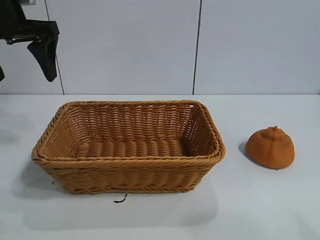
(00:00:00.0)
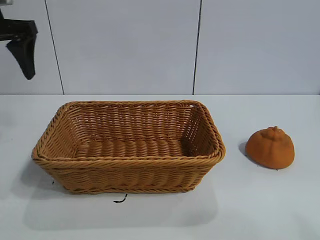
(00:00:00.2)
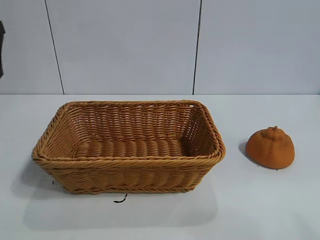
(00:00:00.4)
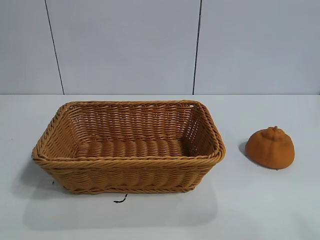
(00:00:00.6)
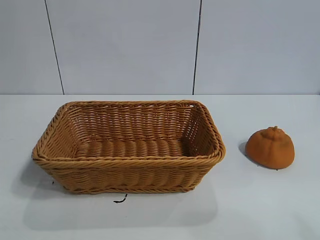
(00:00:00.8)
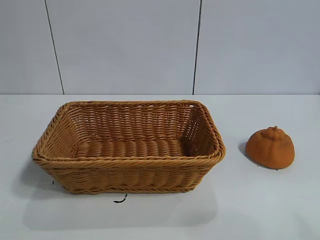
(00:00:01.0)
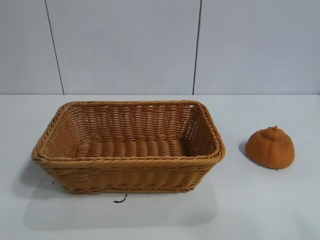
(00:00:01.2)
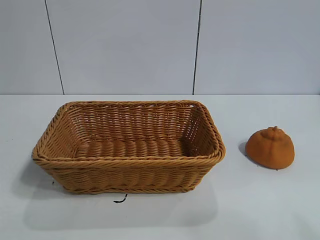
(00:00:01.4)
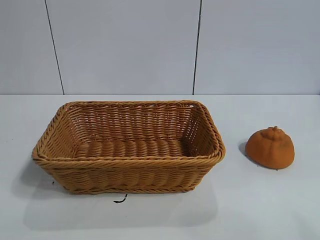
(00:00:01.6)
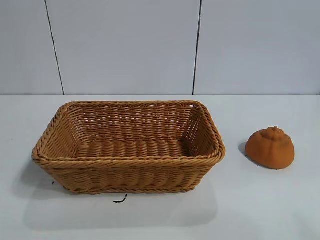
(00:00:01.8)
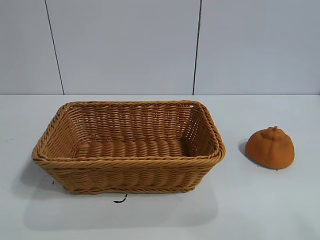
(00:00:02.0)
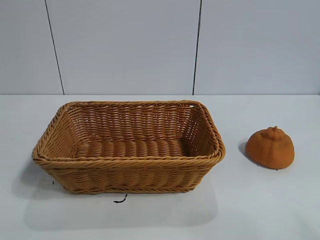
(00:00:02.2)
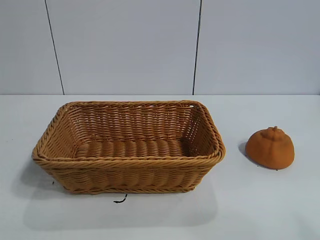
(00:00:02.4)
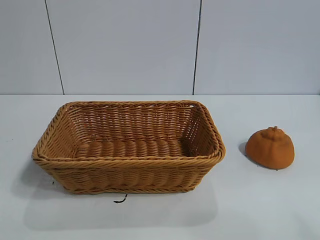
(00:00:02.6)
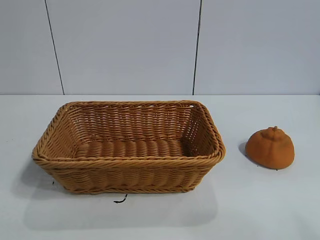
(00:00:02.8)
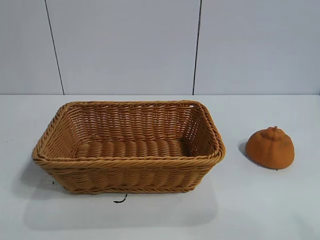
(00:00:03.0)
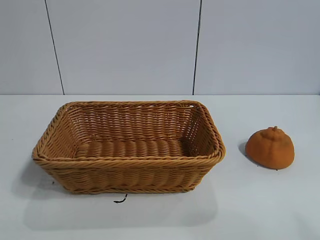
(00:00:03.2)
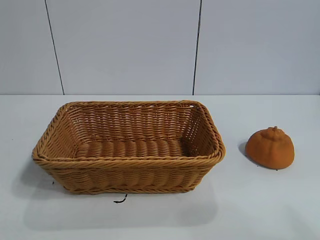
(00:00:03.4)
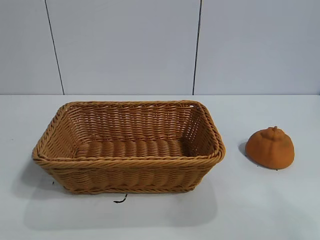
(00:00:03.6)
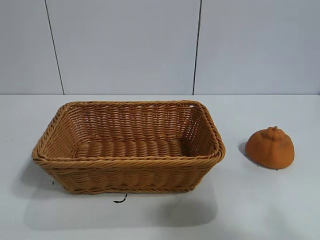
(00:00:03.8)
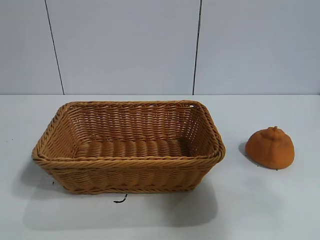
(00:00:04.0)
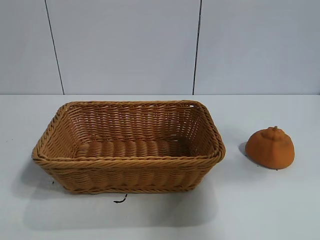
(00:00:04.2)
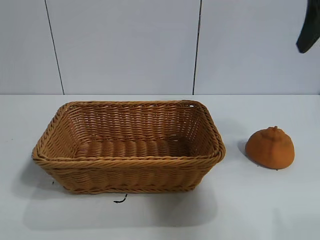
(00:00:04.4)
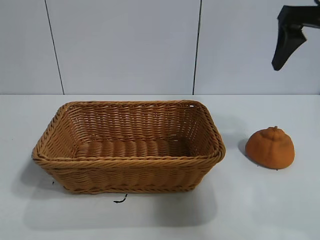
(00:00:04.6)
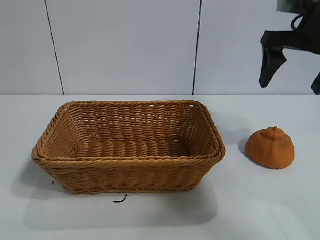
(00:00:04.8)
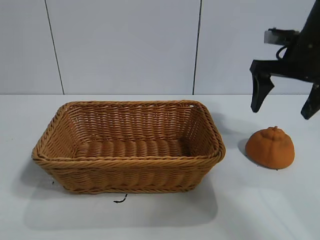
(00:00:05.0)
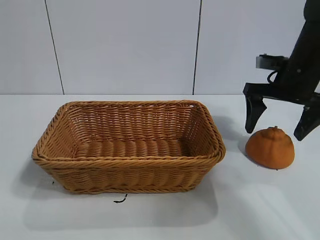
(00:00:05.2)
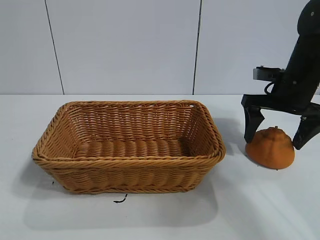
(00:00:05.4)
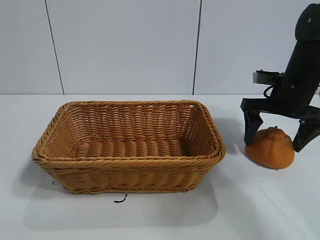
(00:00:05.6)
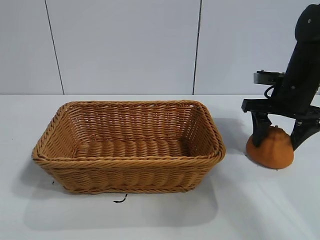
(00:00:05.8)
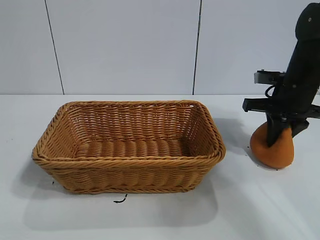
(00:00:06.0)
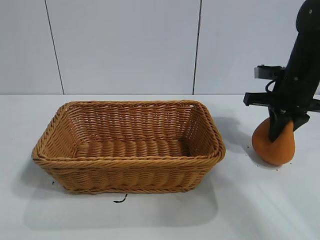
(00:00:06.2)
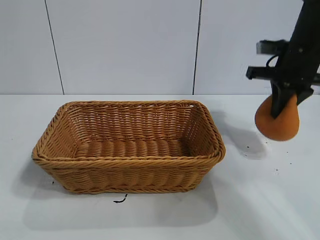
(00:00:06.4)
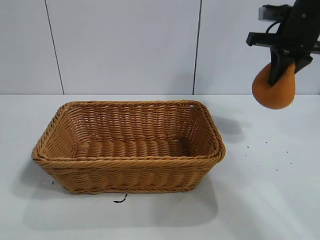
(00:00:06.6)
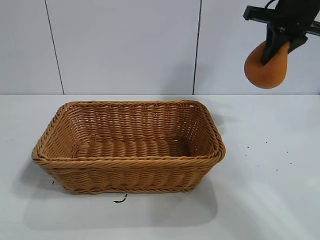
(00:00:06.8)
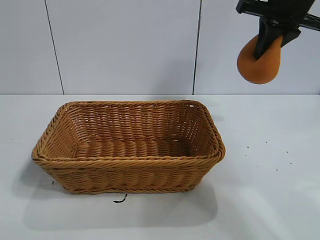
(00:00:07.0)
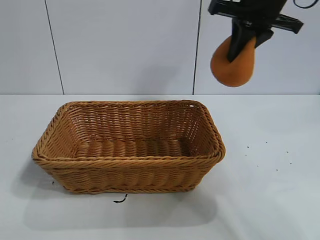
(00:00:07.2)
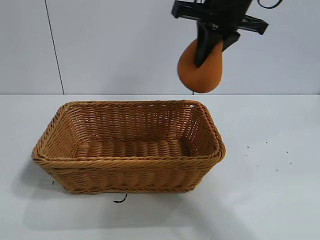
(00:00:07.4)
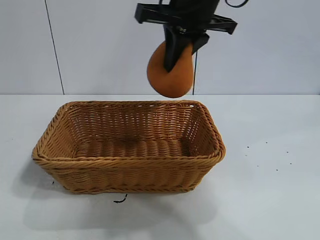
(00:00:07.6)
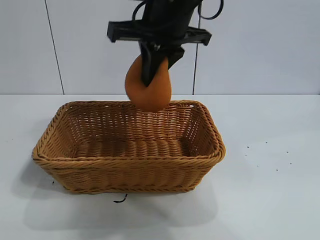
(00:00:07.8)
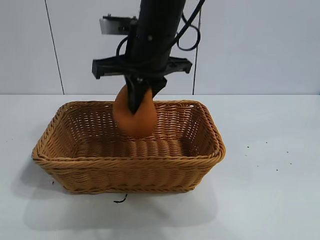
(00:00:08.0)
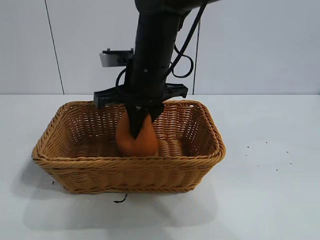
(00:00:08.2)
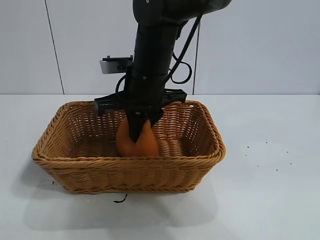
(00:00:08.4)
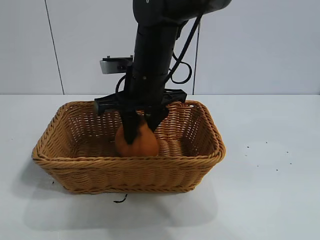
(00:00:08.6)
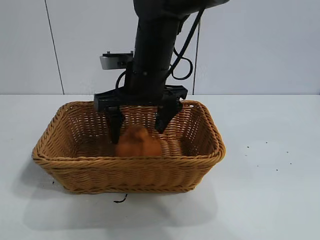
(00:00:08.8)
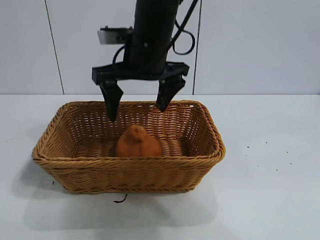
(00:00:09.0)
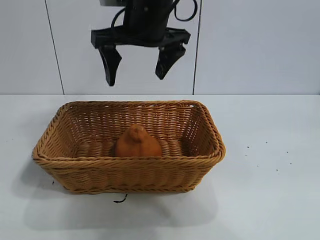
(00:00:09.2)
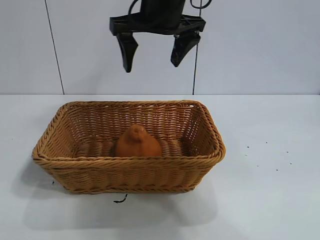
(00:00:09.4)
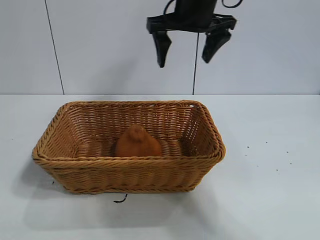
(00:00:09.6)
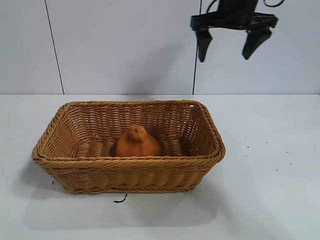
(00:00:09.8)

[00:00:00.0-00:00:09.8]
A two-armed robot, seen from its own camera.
Task of the whole recording: pick up the orange and put it into the basket.
Step, 00:00:00.0 to 00:00:06.0: Grasp the orange with right gripper.
Step, 00:00:06.4 to 00:00:08.8: Place the orange in the basket with right gripper.

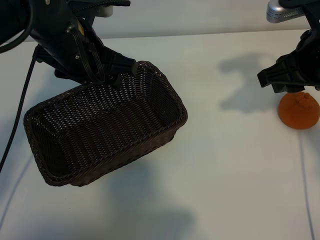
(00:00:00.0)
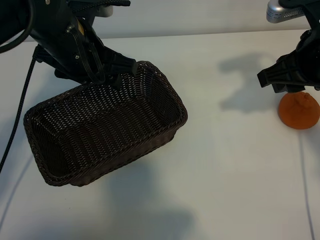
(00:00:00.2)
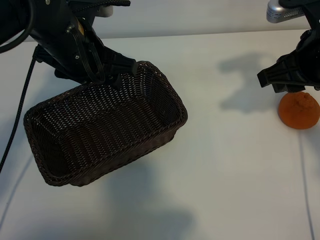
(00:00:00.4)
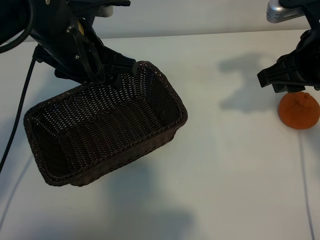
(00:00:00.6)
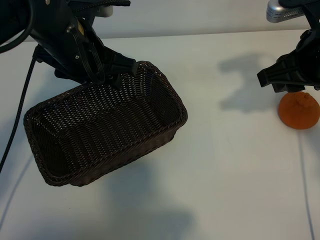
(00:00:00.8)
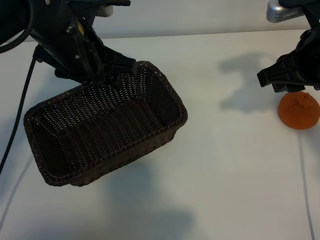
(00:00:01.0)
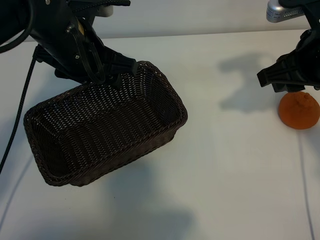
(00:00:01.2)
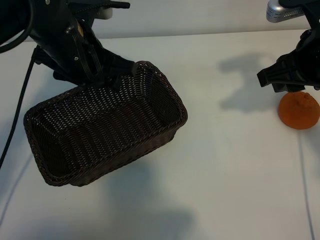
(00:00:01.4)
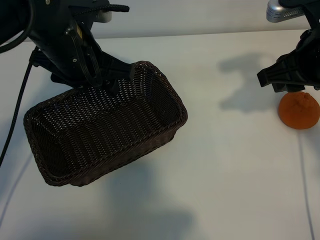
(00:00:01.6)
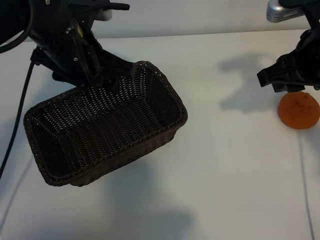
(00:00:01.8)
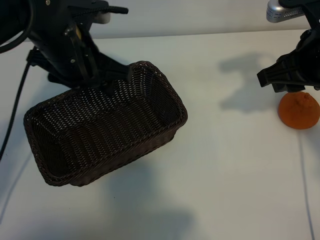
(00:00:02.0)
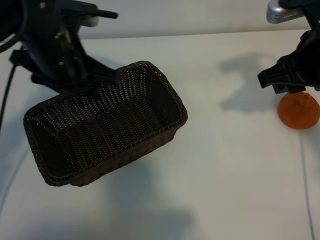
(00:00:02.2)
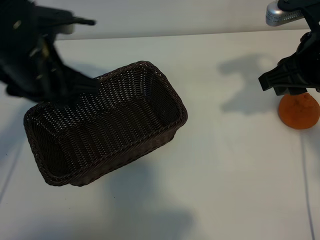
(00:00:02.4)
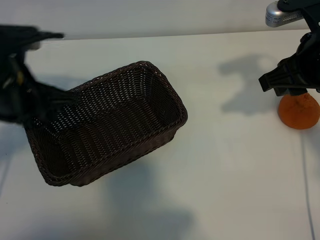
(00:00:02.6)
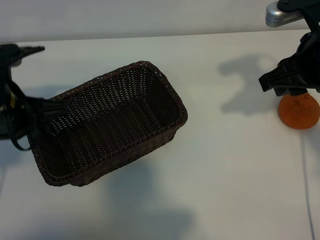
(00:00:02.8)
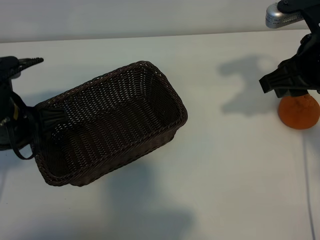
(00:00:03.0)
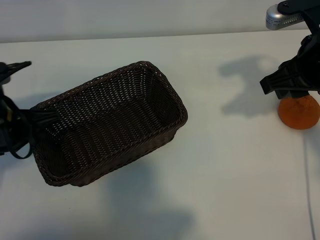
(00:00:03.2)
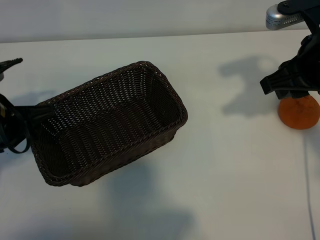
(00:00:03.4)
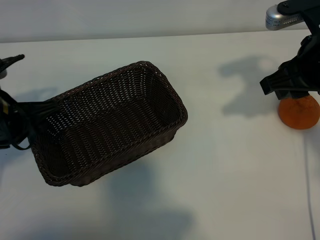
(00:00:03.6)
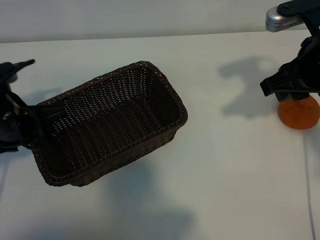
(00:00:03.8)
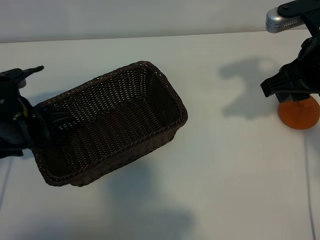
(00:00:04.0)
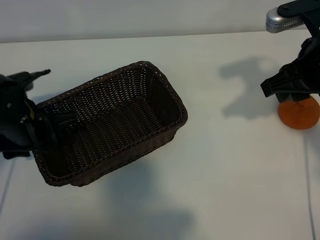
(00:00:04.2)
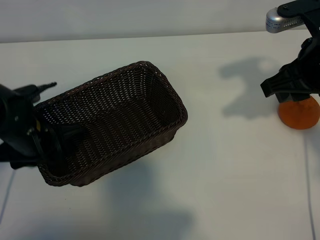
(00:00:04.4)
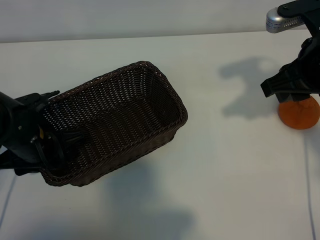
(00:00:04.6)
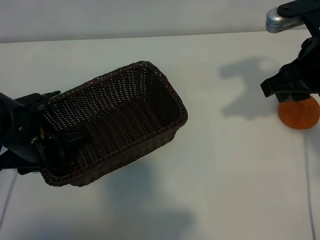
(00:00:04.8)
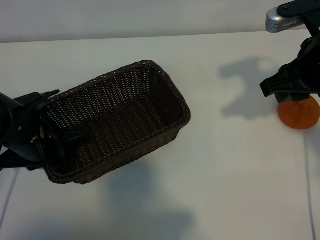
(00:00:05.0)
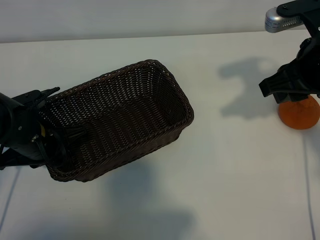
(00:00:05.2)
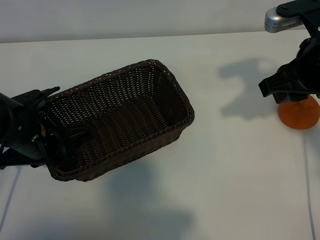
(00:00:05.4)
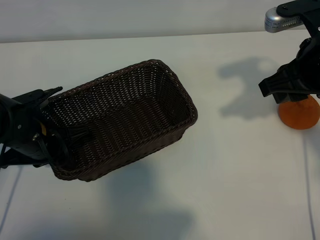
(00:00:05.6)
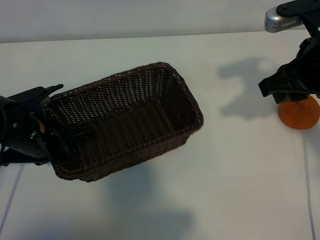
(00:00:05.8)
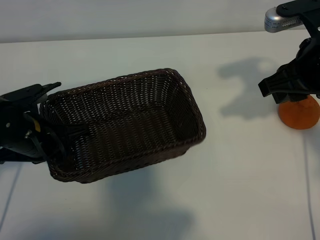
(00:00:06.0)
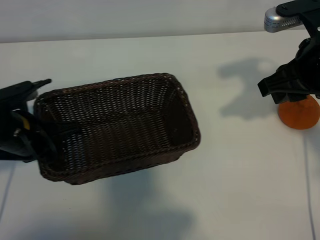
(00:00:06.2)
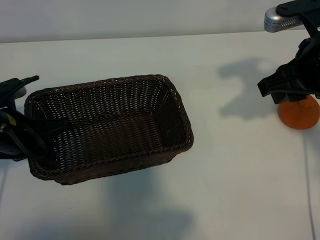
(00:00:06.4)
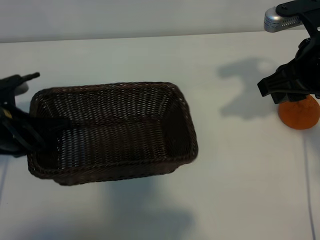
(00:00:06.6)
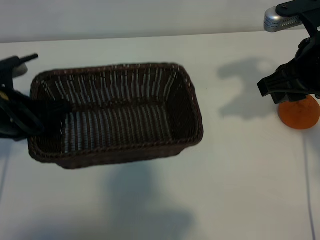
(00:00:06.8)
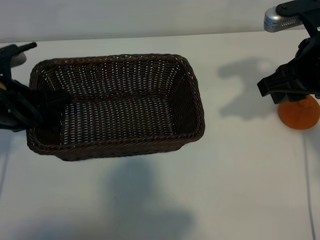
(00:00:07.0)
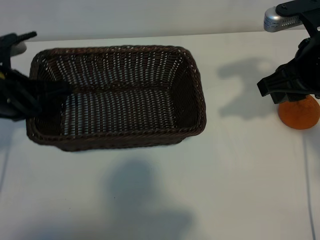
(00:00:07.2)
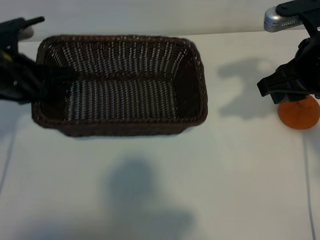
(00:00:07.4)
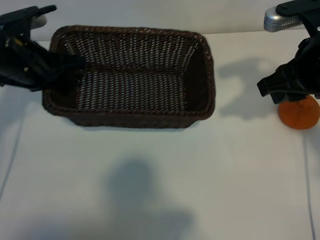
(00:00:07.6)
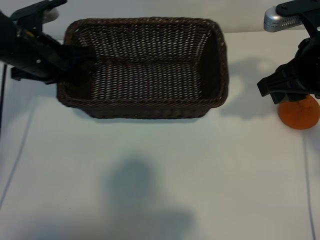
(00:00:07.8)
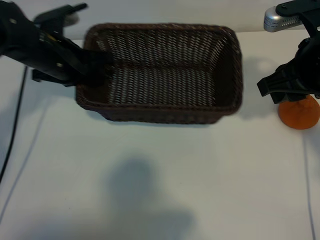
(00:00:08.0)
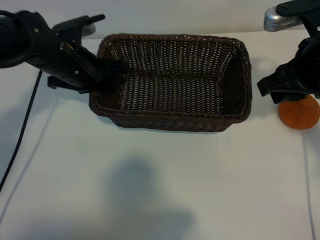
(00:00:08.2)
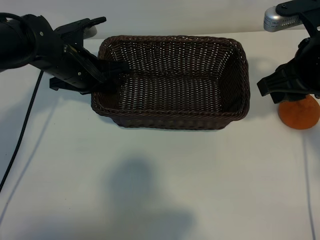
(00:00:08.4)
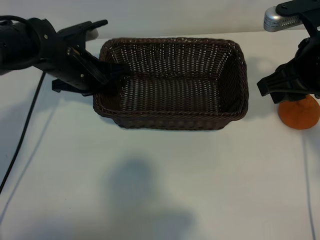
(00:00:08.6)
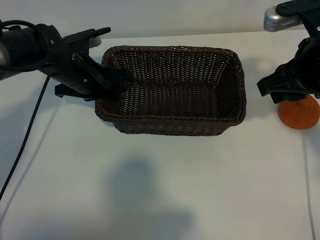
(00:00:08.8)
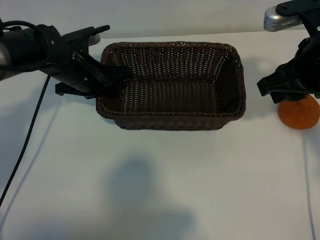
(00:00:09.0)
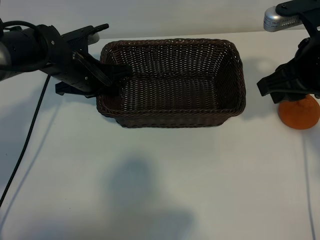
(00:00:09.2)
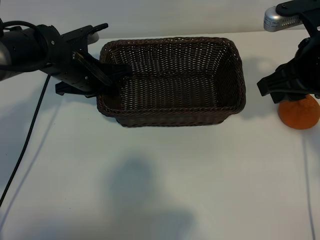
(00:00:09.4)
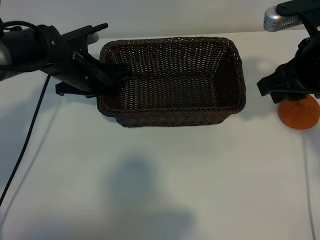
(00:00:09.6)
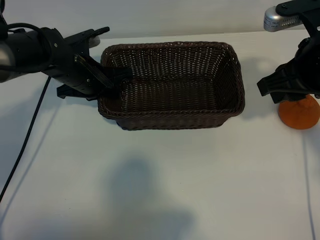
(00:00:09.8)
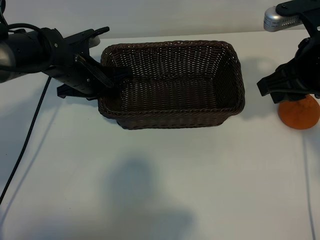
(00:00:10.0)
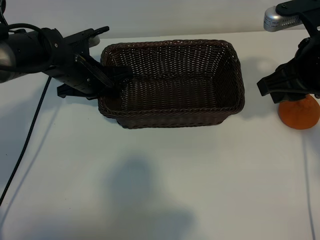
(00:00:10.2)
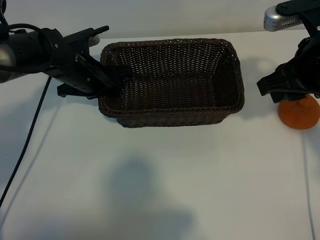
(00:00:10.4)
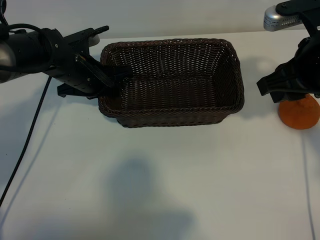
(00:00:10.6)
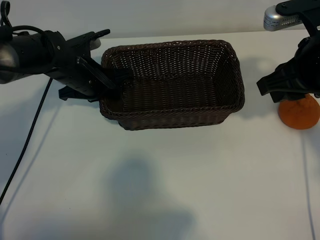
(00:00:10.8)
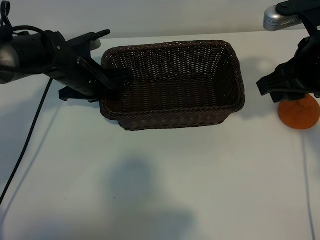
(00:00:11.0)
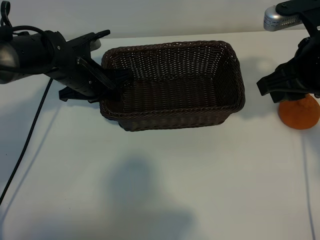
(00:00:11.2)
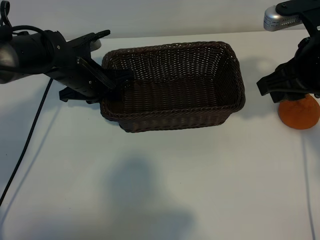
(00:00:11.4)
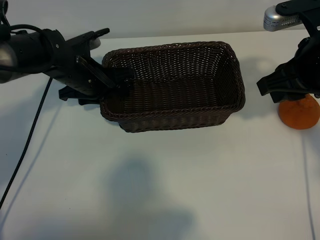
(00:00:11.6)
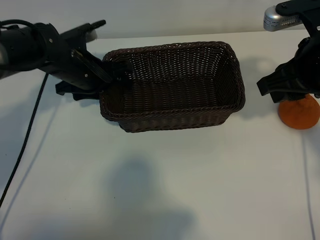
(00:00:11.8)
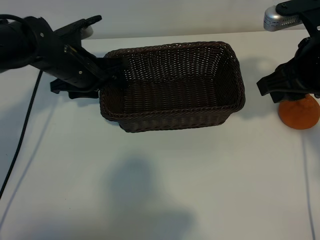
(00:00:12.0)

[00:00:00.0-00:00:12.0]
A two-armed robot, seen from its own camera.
Task of the whole recording: pick up the orange and put it into the basket.
Step, 00:00:01.4 to 00:00:05.0: Grasp the basket with left gripper.
Step, 00:00:05.2 to 00:00:11.2: Place the basket in the center of view with left gripper.
